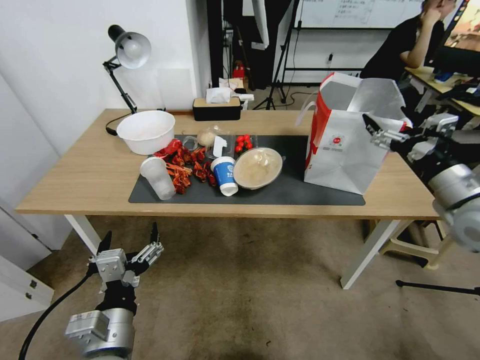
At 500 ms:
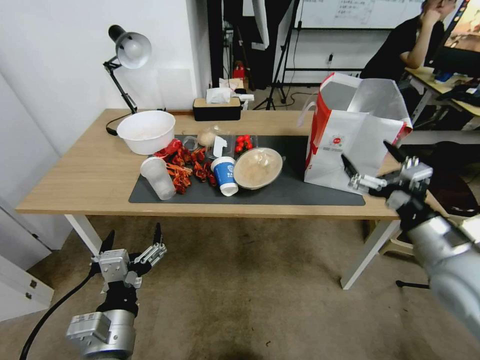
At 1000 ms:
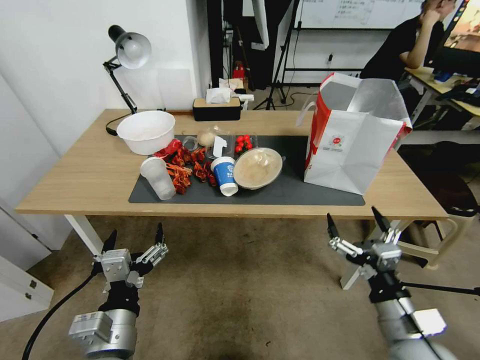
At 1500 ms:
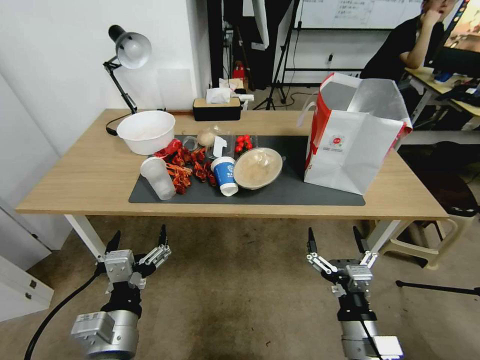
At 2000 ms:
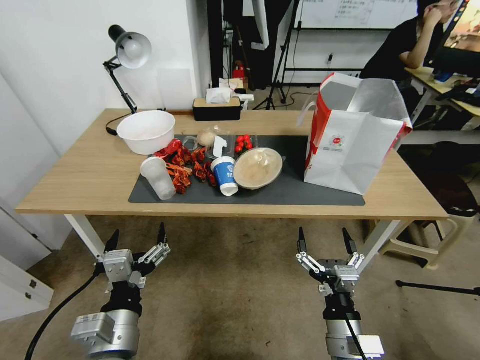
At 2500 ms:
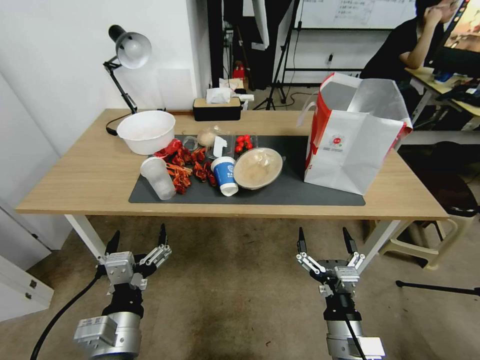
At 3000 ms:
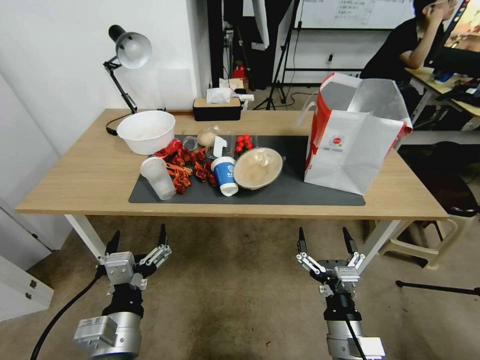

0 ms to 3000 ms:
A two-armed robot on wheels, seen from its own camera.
Task of the whole recording: Pick up the food delivery bag from the floor and place it on the table.
0 ms to 1500 ms: The right gripper shifts some 35 cm downward, backward and to the left.
1500 ms to 3000 ms: There are only small adjustments of the grippers.

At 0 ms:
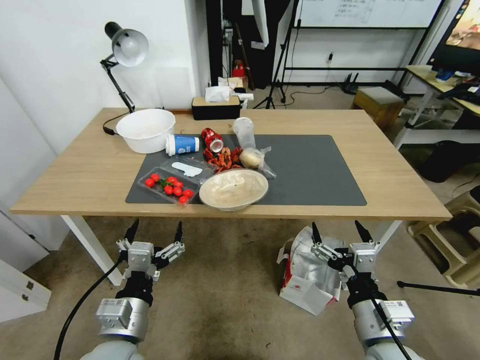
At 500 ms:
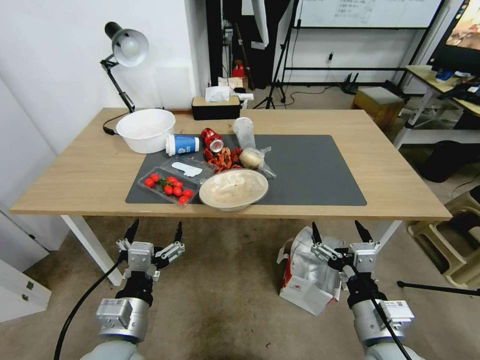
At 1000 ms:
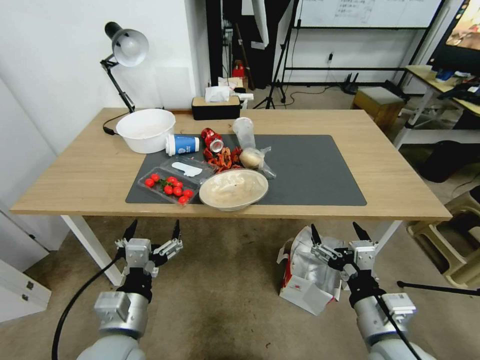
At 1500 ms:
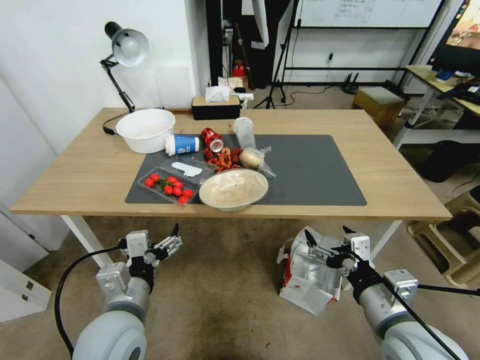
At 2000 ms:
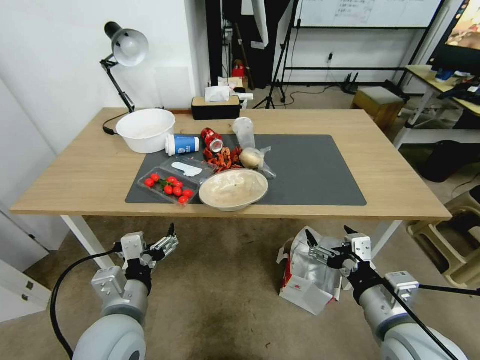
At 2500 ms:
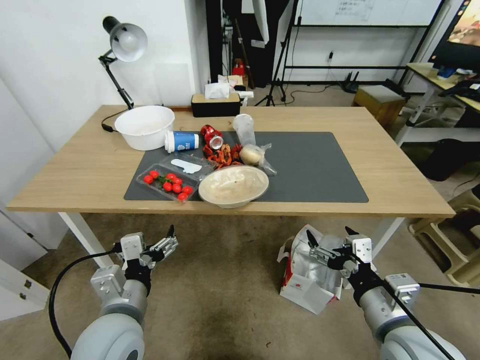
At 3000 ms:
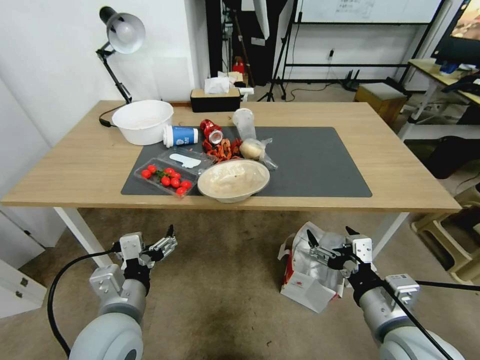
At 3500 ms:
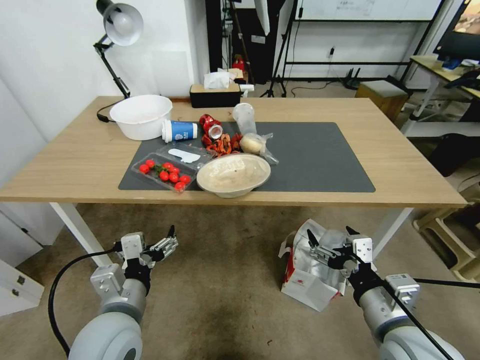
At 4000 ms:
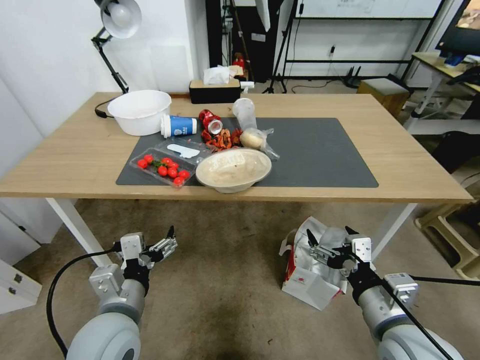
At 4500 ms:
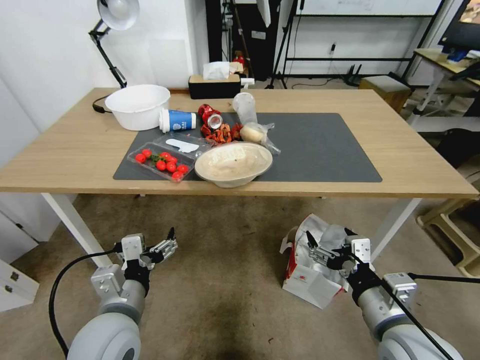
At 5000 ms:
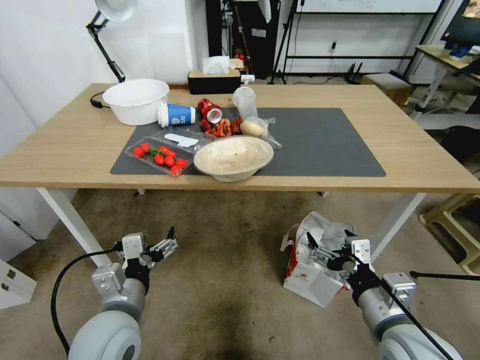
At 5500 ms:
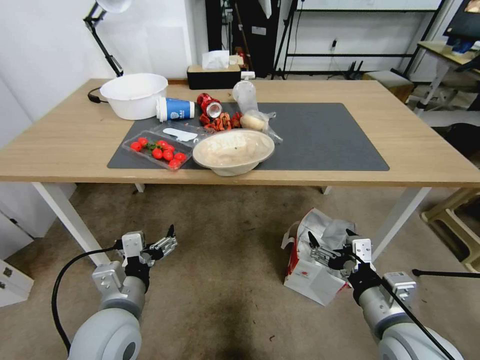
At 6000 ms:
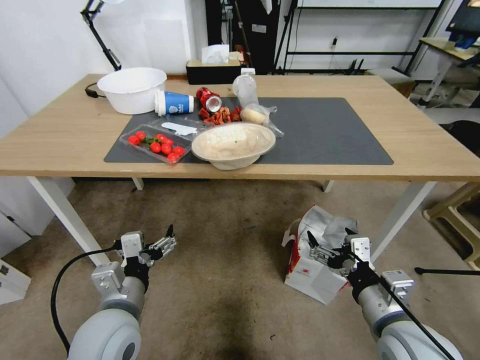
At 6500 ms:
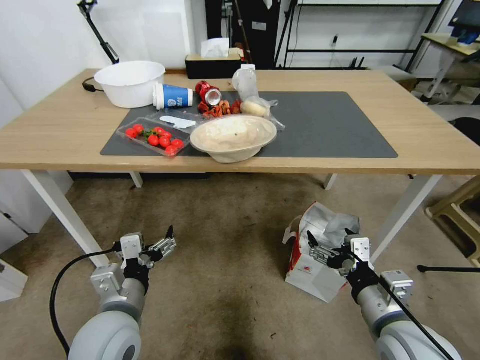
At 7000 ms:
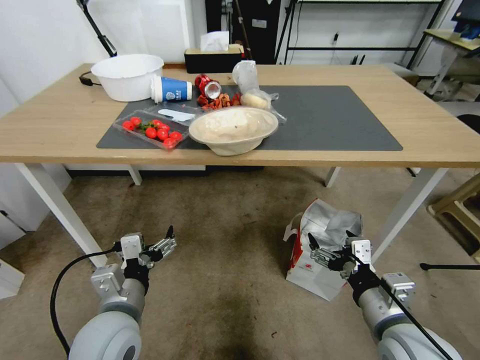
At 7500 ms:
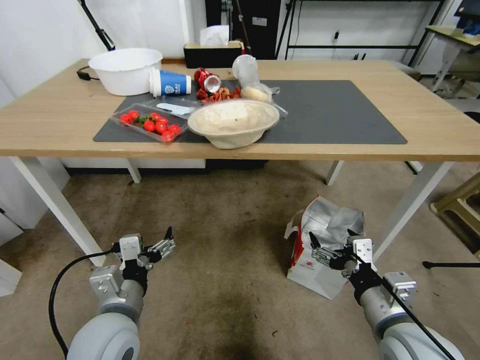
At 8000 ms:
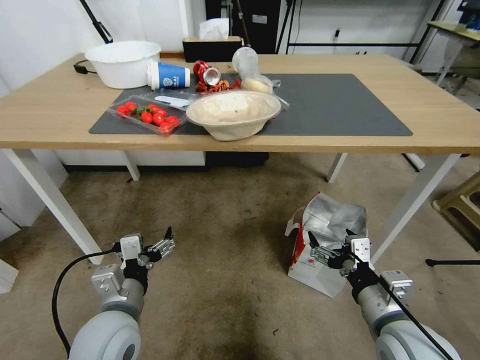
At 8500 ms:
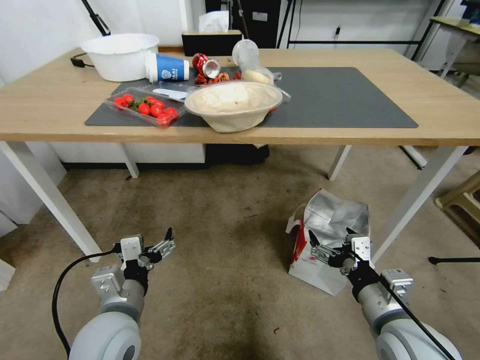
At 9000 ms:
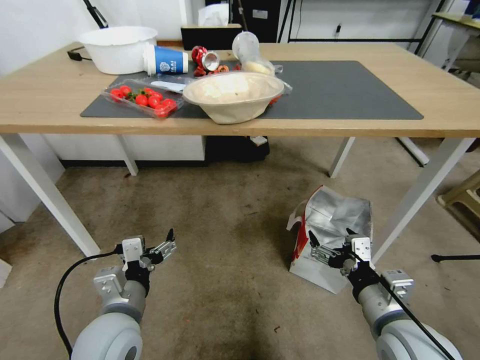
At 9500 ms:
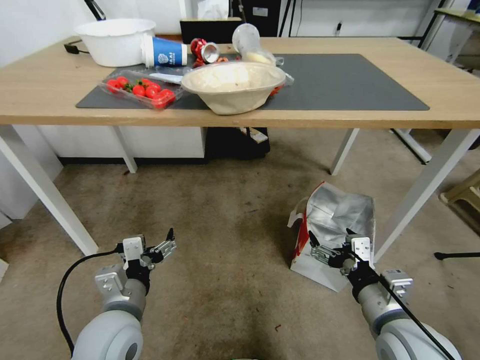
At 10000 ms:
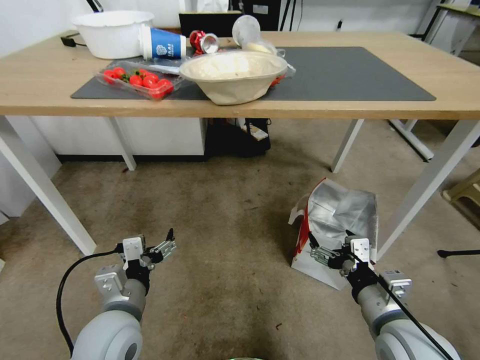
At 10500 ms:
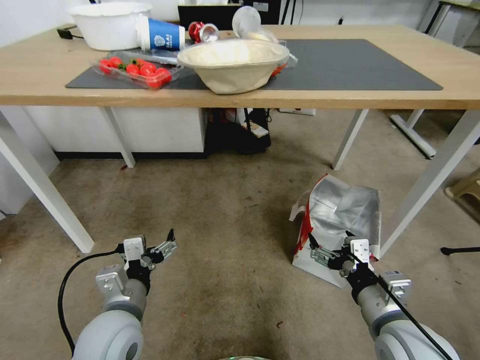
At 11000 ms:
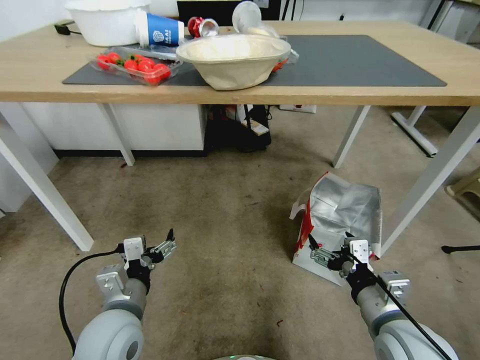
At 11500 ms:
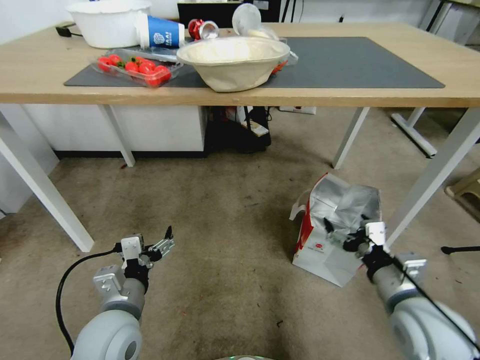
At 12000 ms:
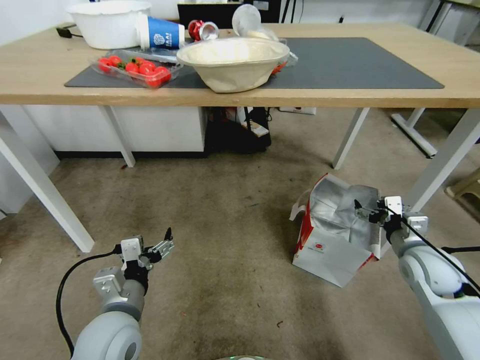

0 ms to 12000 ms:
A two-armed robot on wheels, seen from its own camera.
Task of the whole recording: Pick up the food delivery bag from the floor and place it on the table.
10000 ms to 12000 ms: The right gripper goes approximately 20 cm forward and to the right.

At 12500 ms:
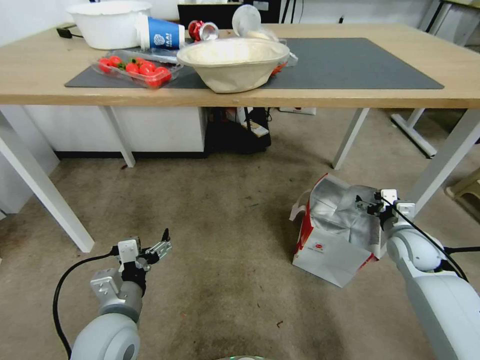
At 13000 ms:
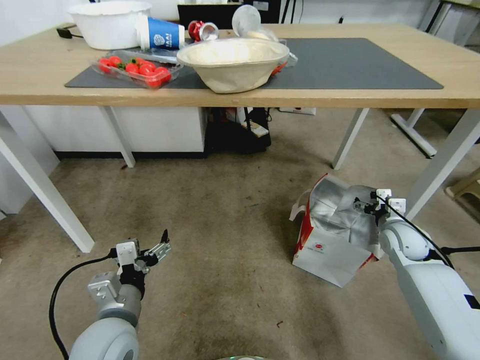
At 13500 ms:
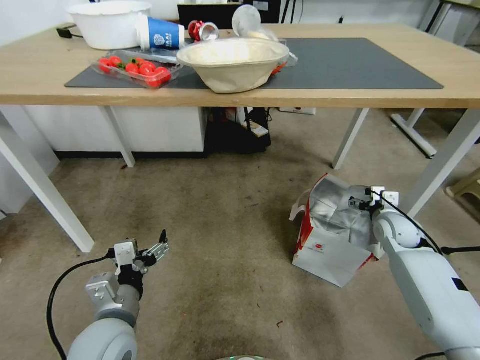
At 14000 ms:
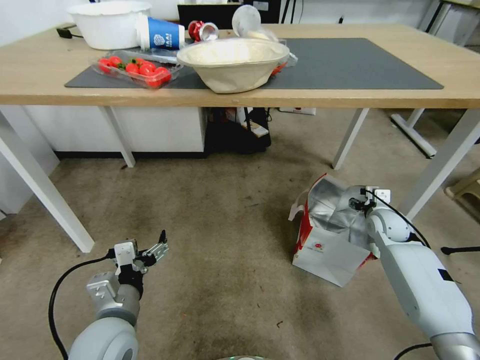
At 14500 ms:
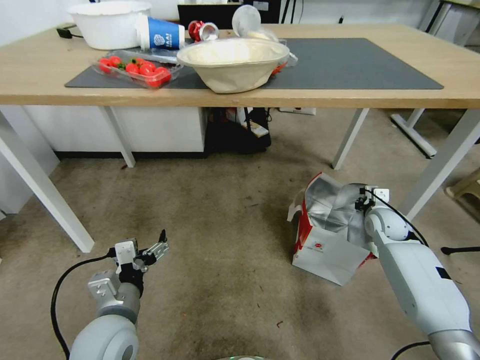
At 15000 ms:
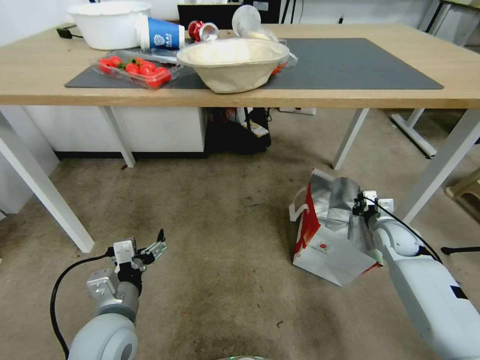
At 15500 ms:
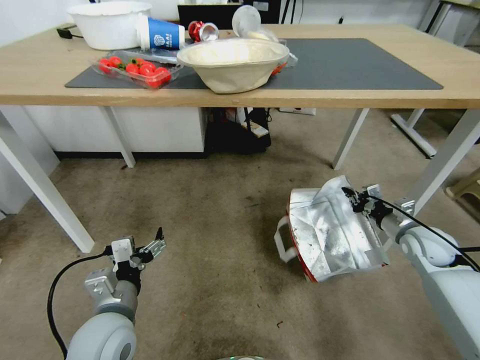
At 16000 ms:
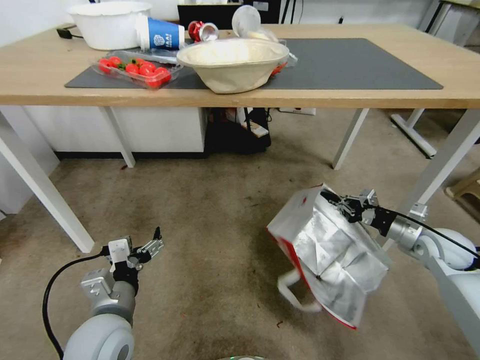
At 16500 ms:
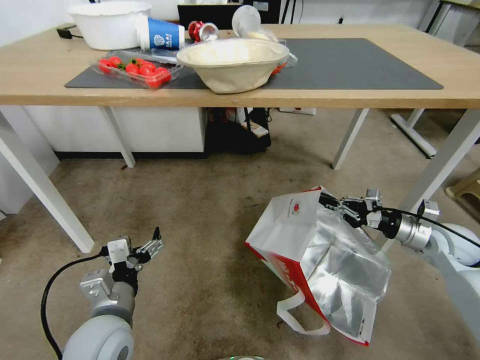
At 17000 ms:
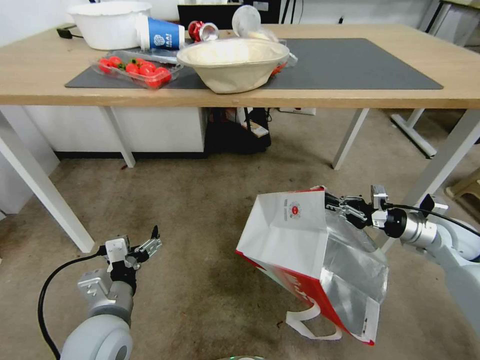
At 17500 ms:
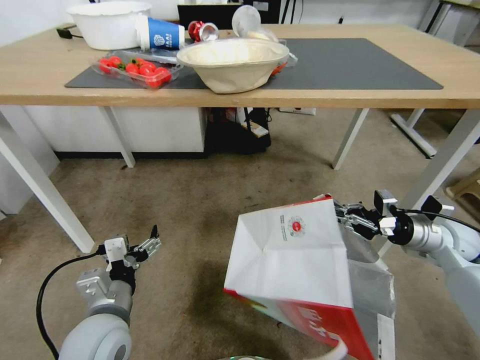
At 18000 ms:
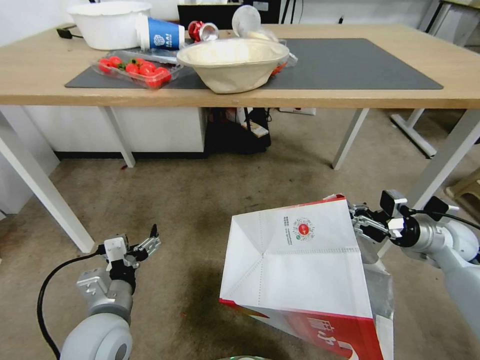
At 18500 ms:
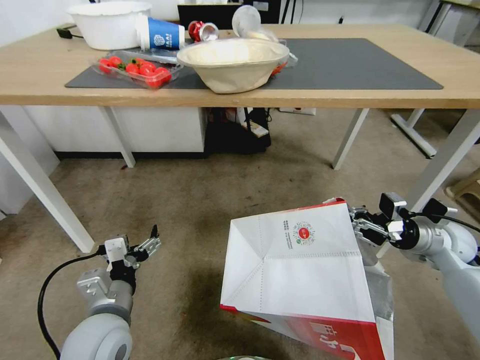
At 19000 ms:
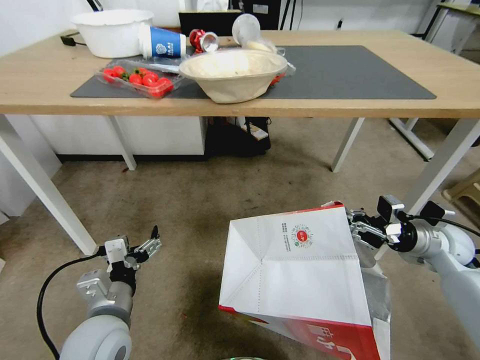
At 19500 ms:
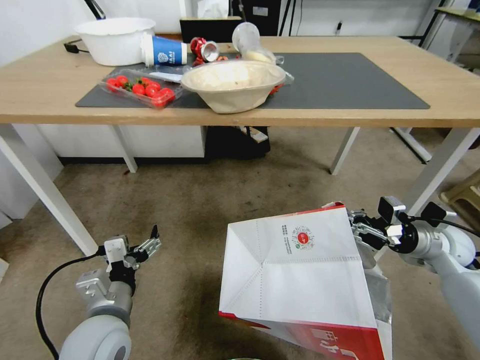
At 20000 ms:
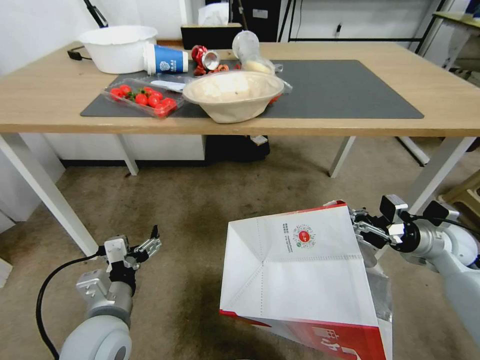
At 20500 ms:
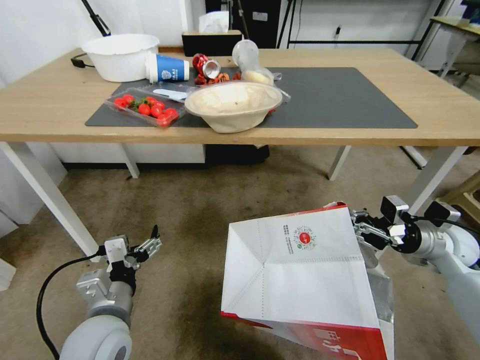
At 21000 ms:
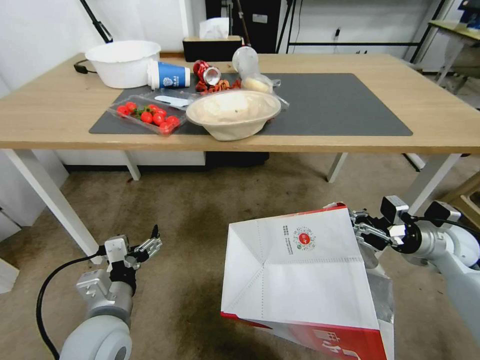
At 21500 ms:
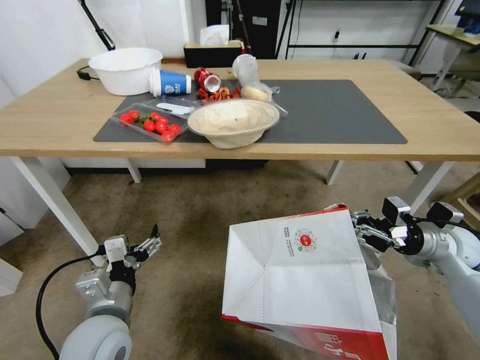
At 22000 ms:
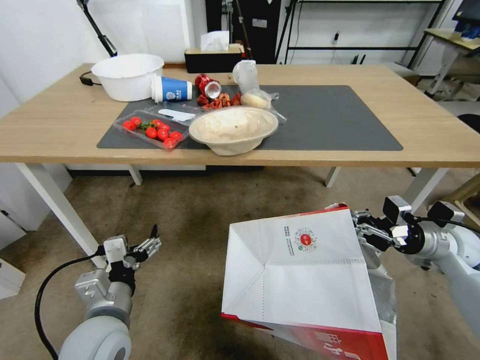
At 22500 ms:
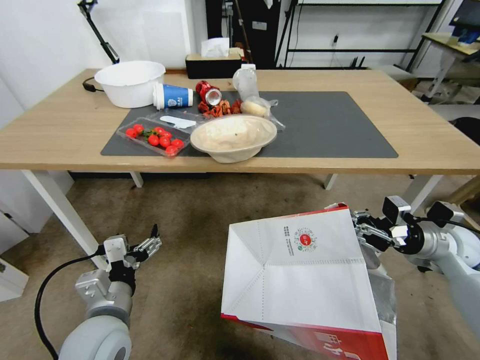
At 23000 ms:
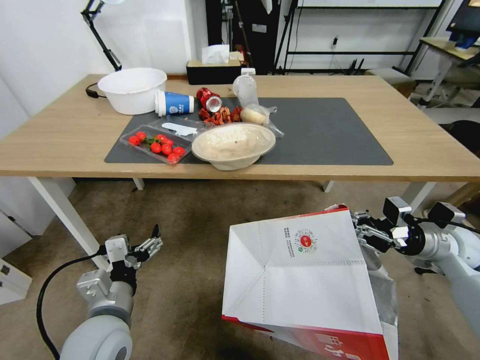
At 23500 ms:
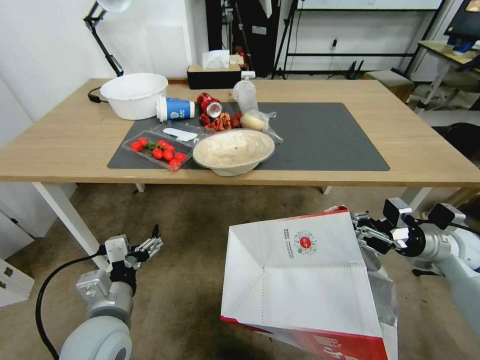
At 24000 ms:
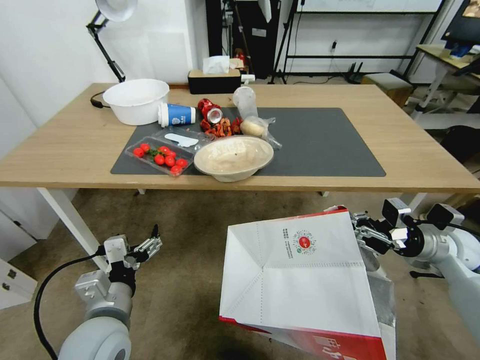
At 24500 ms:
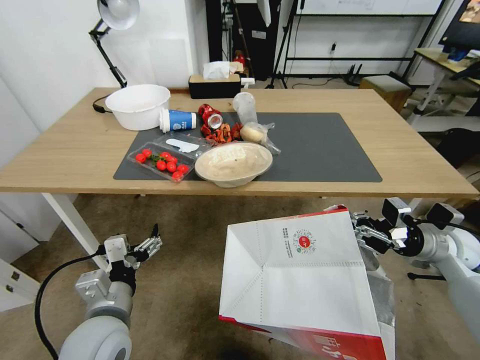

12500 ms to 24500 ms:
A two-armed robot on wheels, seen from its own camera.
Task of the whole recording: Pick up the food delivery bag from the floor and place it on the table.
12500 ms to 14500 ms: The right gripper is displaced forward by about 10 cm, and closes up.
14500 ms to 16500 ms: The right gripper travels backward and to the right by approximately 10 cm.
